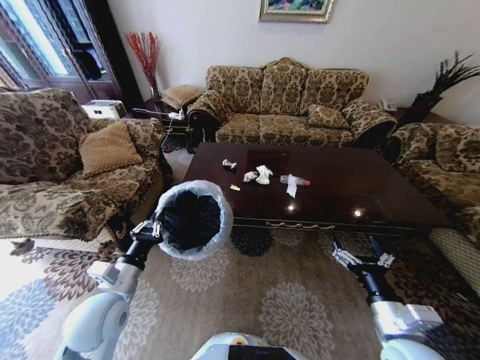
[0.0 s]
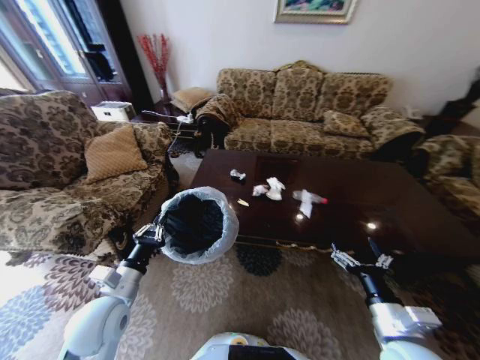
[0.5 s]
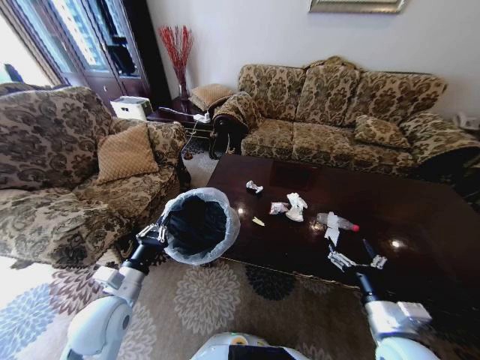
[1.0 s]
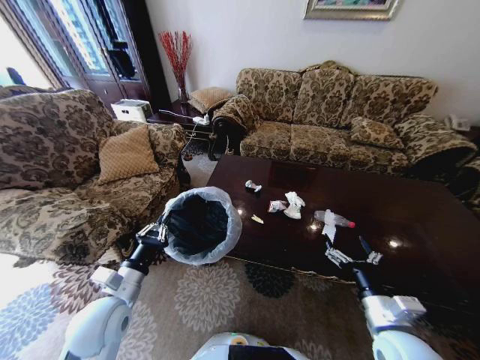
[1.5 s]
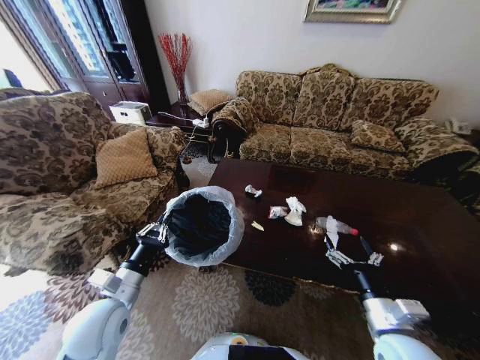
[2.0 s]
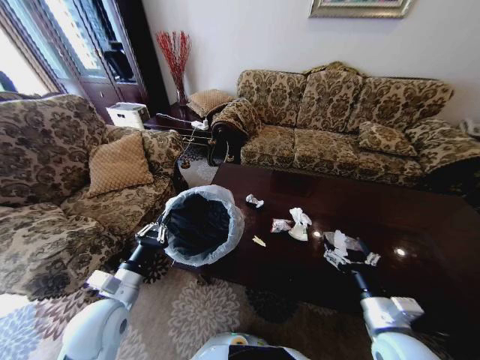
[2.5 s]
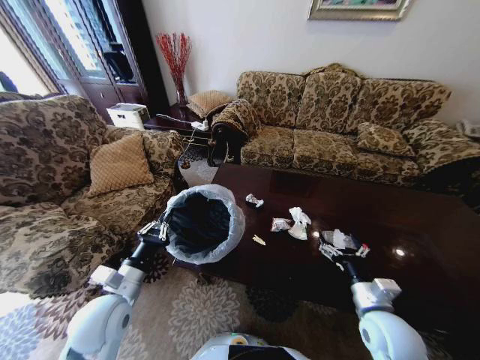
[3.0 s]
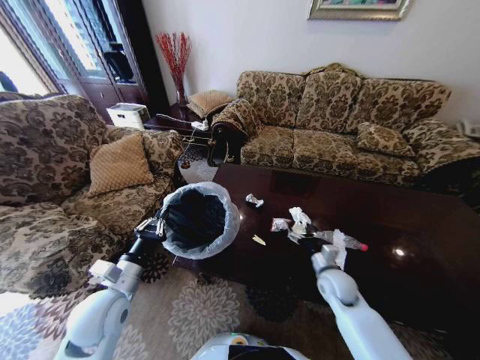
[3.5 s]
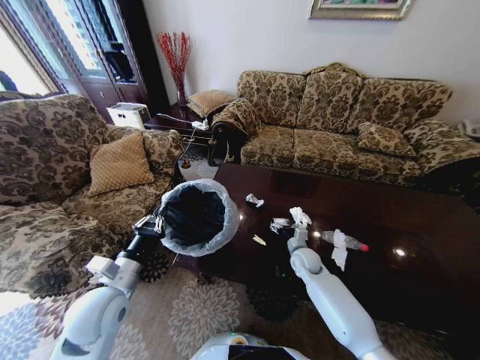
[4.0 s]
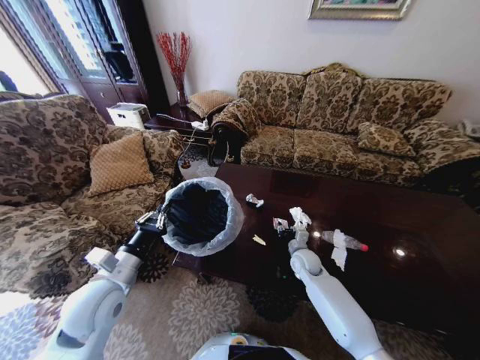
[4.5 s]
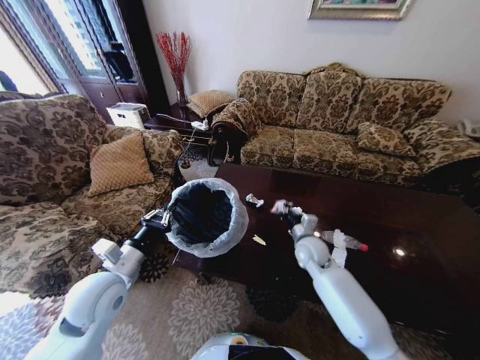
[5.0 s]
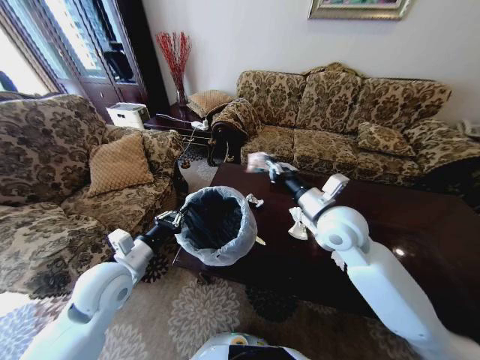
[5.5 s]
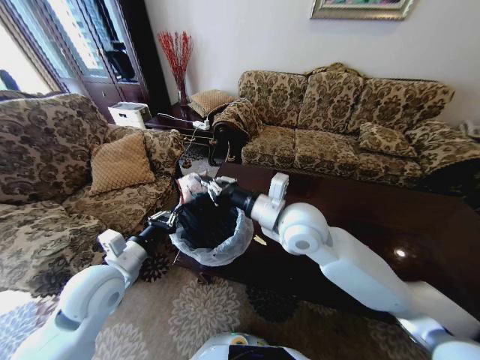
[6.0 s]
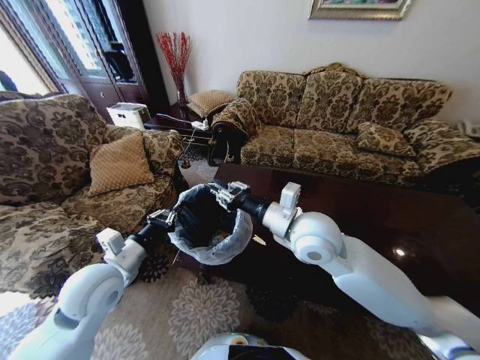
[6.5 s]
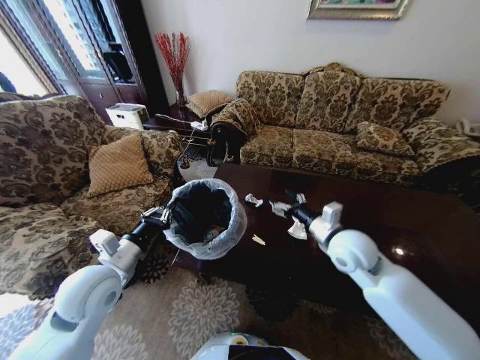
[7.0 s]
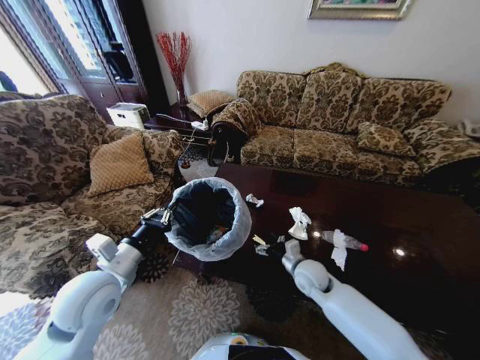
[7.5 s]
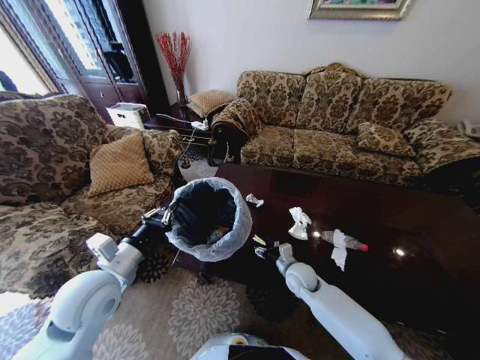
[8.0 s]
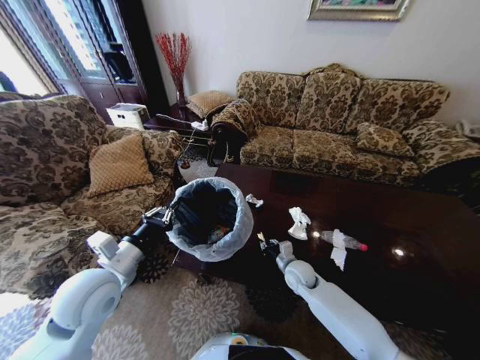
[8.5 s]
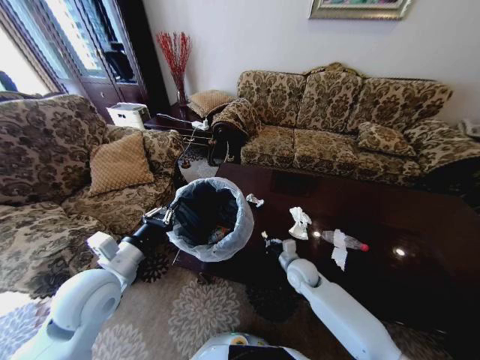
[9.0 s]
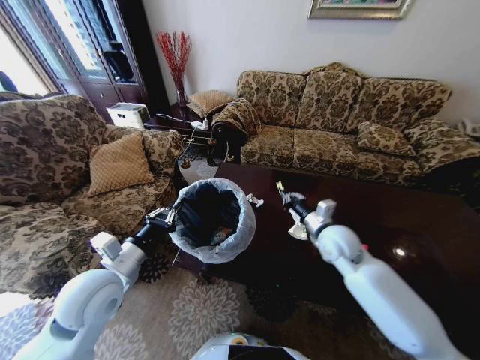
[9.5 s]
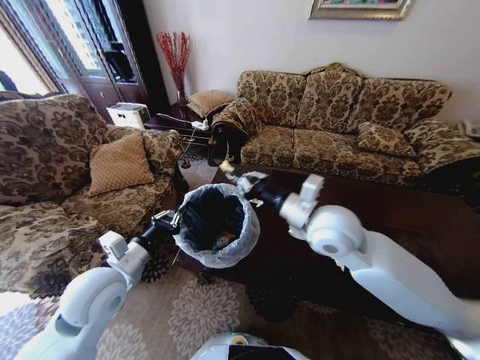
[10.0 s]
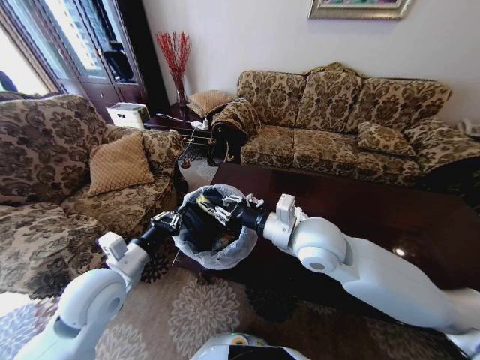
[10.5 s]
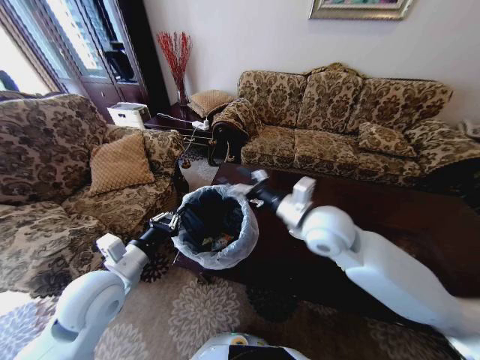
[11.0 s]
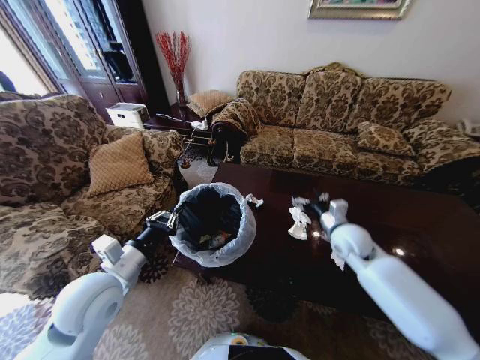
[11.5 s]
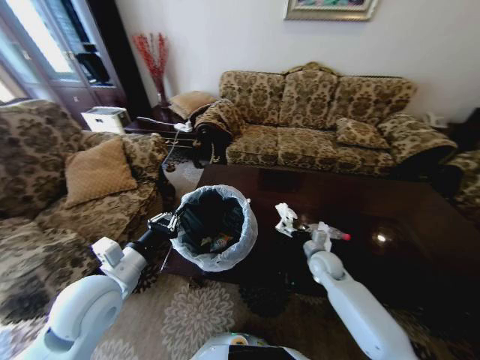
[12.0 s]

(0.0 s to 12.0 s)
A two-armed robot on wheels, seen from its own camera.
Task of the whole recording: Move to the front of the table and place the trash on the table into the trash bin.
2.0 s - 4.0 s: The right gripper goes about 30 cm forward and downward.
4.0 s - 6.0 s: The left gripper moves approximately 5 cm. The right gripper is displaced upward by about 30 cm, and closes up.
6.0 s - 8.0 s: The right gripper travels downward by roughly 30 cm, and opens its fingers.
8.0 s - 10.0 s: The right gripper goes approximately 30 cm upward, and closes up.
10.0 s - 12.0 s: The right gripper is displaced downward by about 30 cm, and opens.

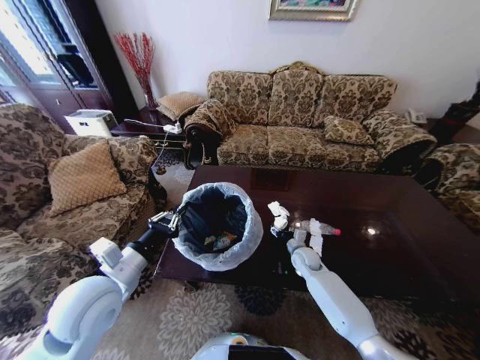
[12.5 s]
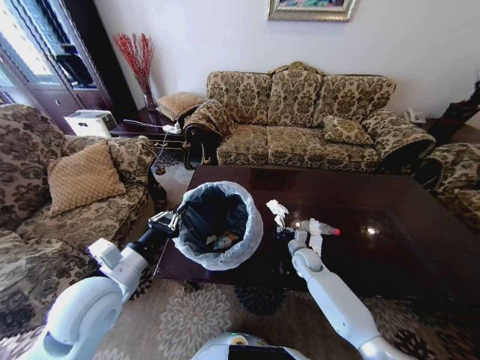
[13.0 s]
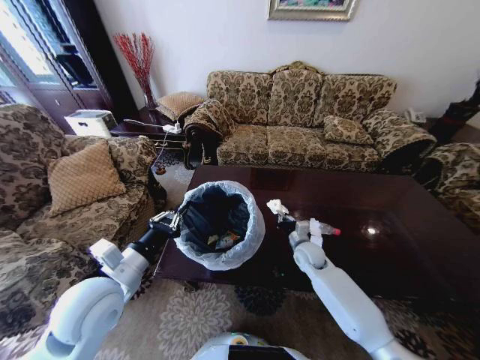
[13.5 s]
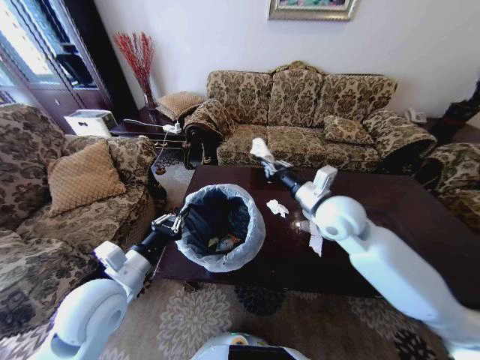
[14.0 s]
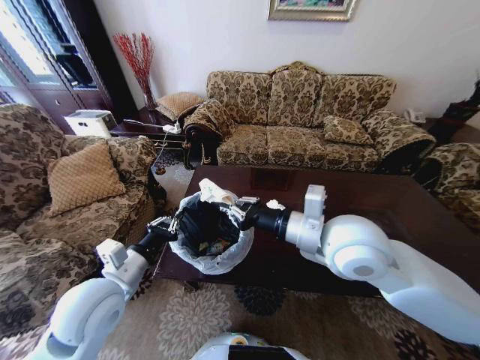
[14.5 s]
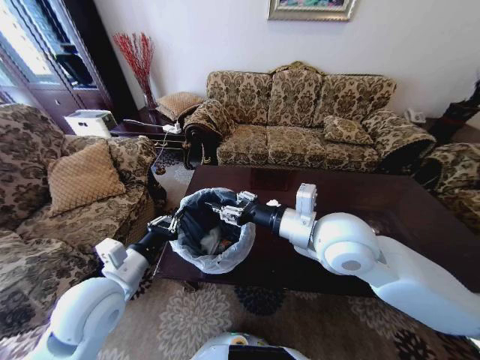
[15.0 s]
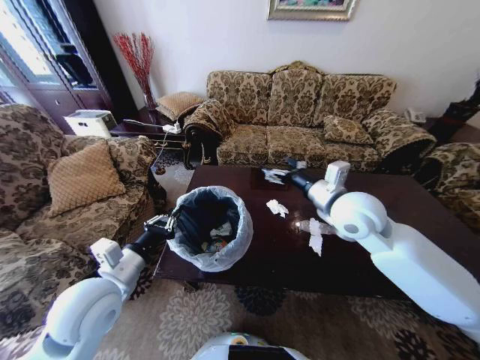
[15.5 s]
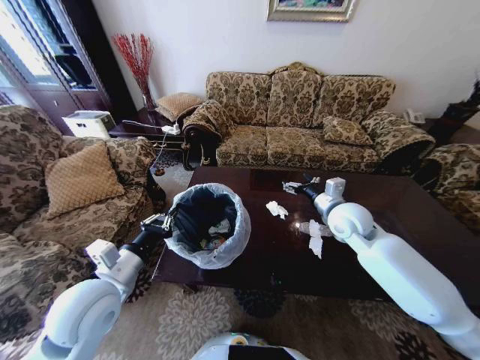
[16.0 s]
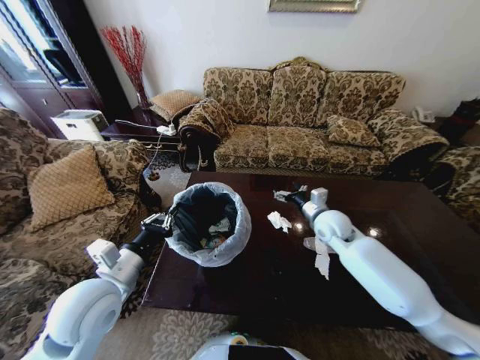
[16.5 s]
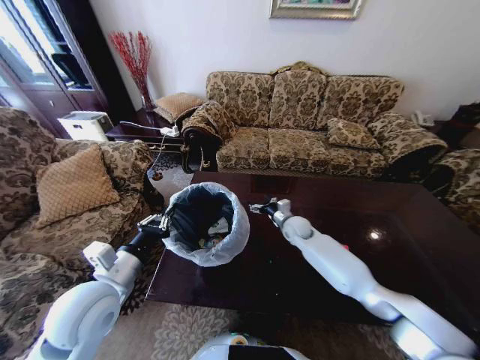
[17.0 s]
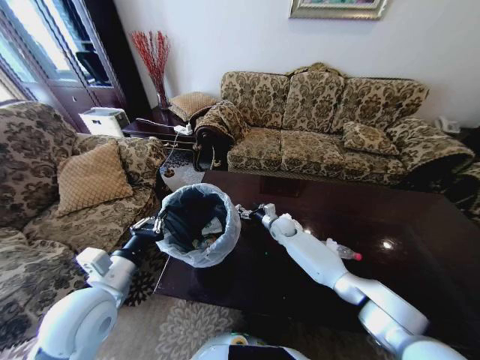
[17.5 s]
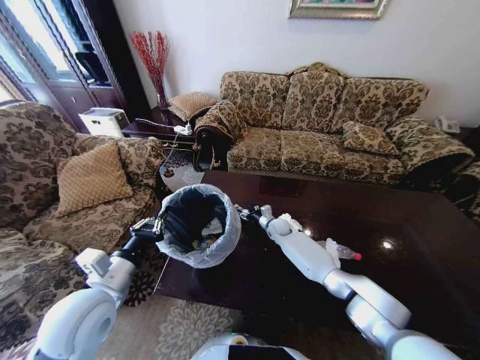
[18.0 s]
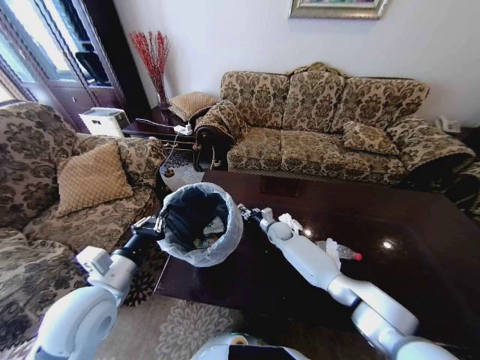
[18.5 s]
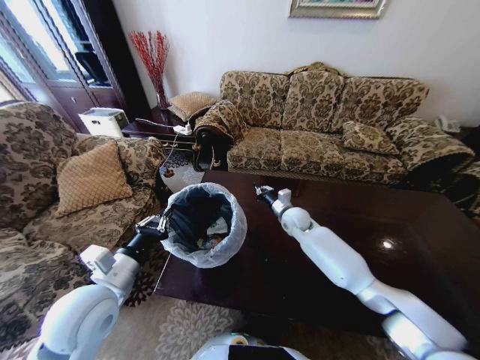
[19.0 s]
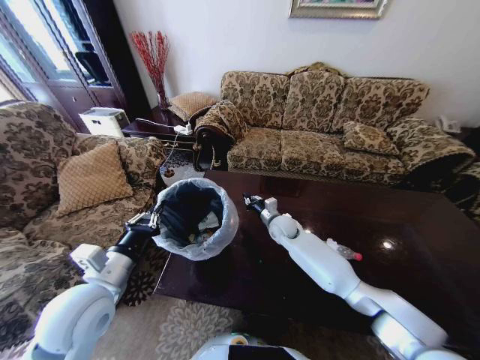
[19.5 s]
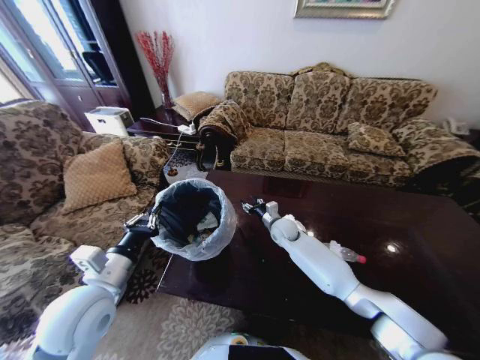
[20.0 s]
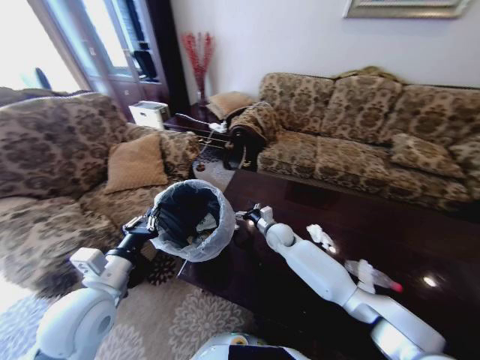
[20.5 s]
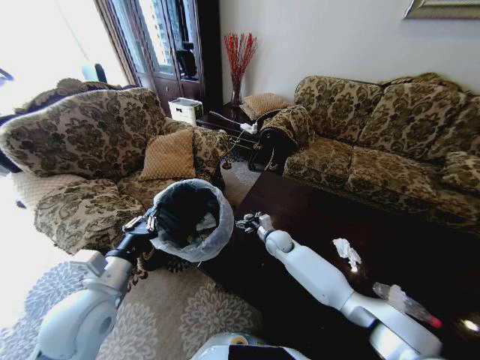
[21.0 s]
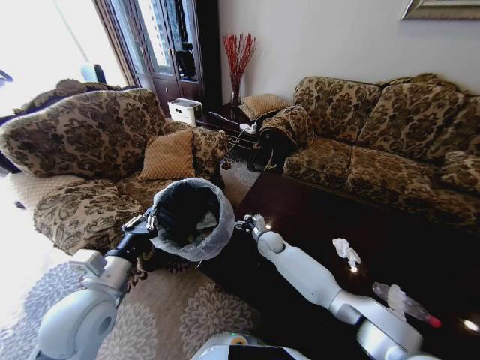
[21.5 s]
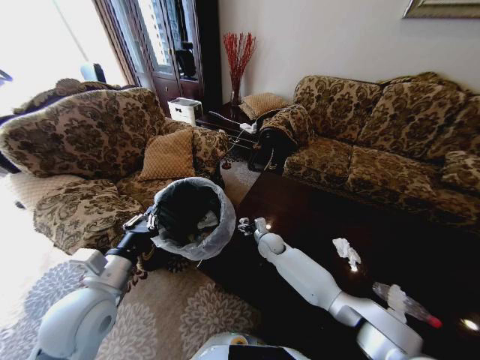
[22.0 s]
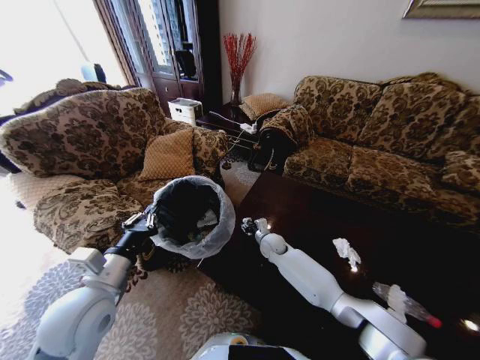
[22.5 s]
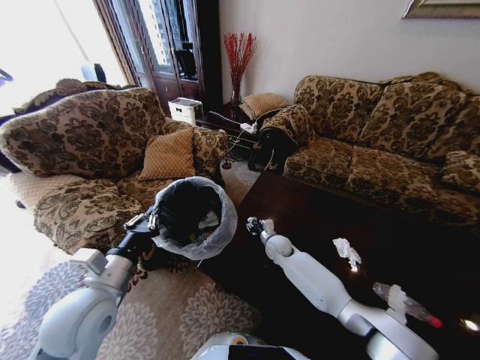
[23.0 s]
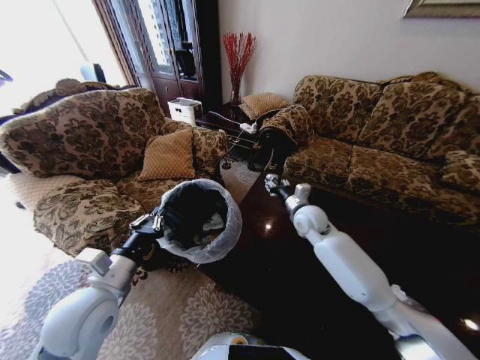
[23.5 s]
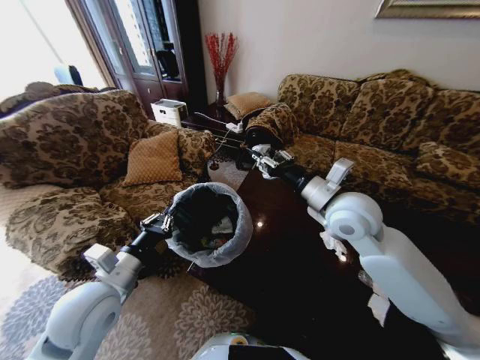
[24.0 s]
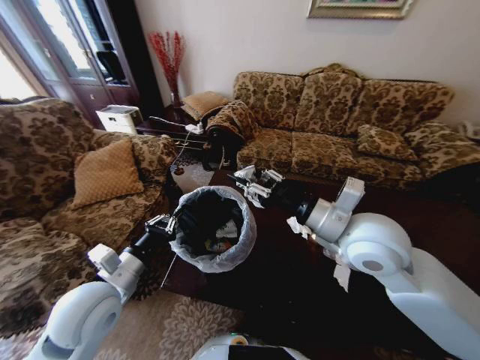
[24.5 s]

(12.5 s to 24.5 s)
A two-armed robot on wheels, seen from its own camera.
Task of the whole recording: Move to the front of the table and place the trash on the table into the trash bin.
12.5 s - 14.5 s: The right gripper travels upward and backward by about 40 cm, and closes.
14.5 s - 16.5 s: The right gripper goes about 25 cm forward, downward and to the right, and opens.
16.5 s - 18.5 s: The right gripper heads downward, to the left and forward, covering some 25 cm, and closes its fingers.
18.5 s - 20.5 s: The right gripper heads upward, covering approximately 5 cm, and opens its fingers.
20.5 s - 22.5 s: The right gripper heads downward, covering some 5 cm, and closes.
22.5 s - 24.5 s: The right gripper goes about 40 cm upward and backward.

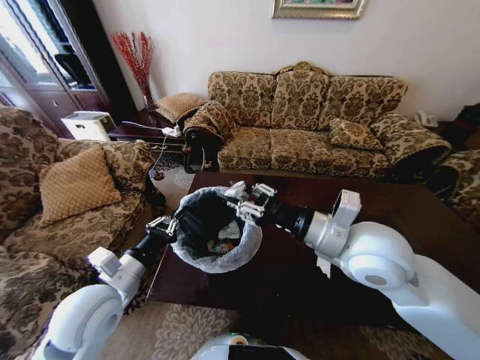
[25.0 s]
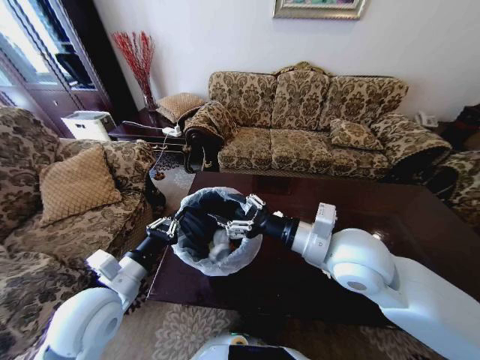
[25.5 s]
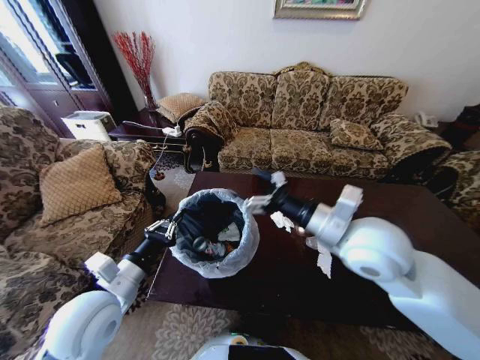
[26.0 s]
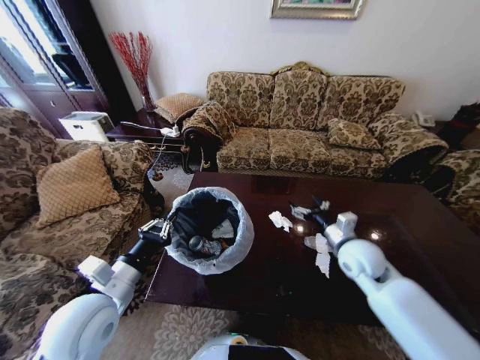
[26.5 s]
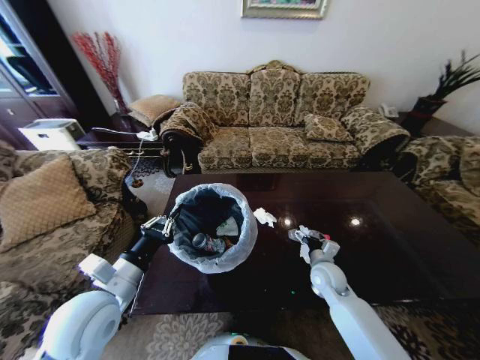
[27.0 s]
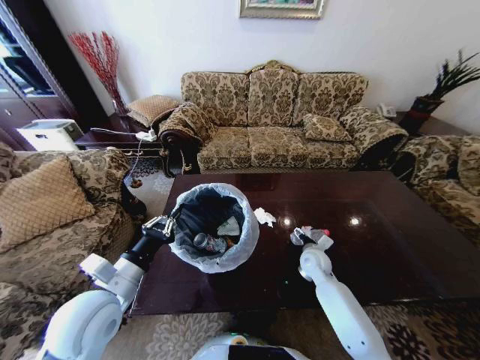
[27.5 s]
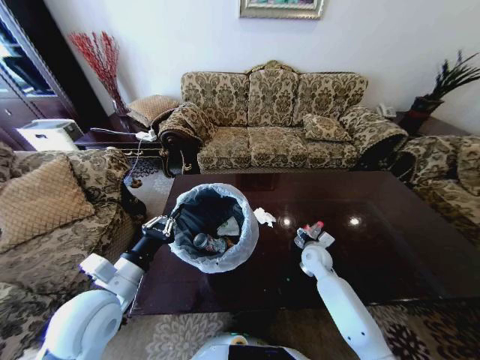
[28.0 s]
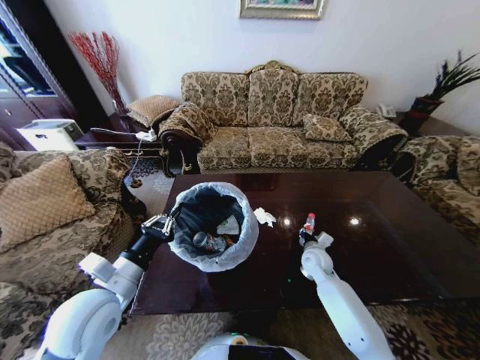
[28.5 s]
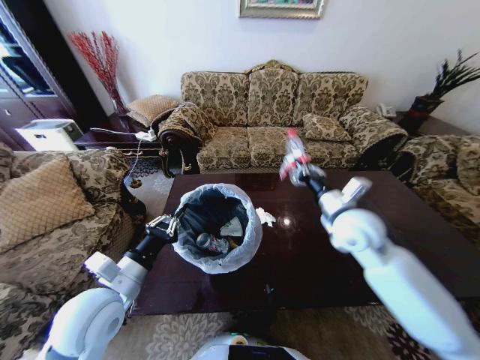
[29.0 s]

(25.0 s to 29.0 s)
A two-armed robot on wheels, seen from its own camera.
Task of the whole recording: Move to the front of the table and place the trash on the table into the trash bin.
25.0 s - 27.0 s: The right gripper heads downward, covering about 30 cm, and opens.
27.0 s - 29.0 s: The right gripper shifts some 25 cm upward, and closes up.
